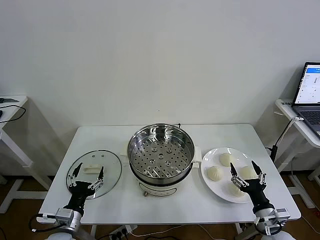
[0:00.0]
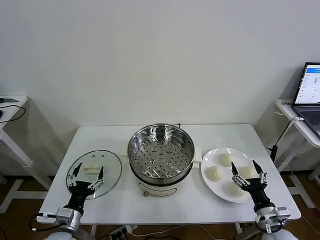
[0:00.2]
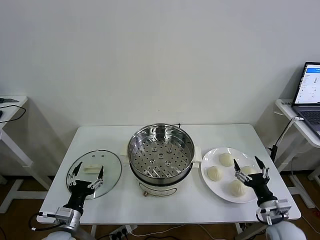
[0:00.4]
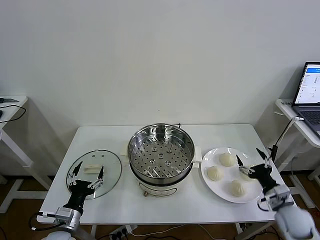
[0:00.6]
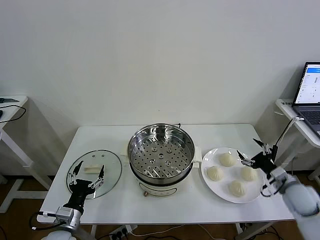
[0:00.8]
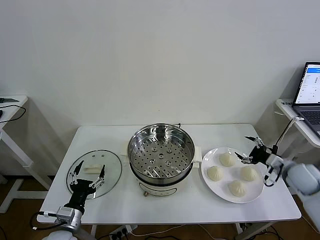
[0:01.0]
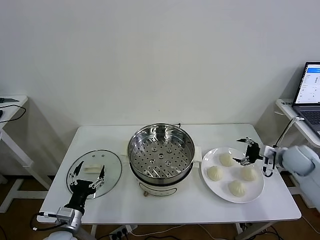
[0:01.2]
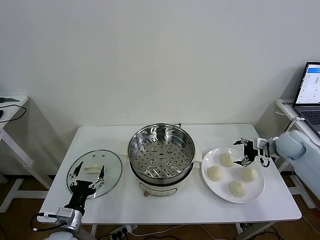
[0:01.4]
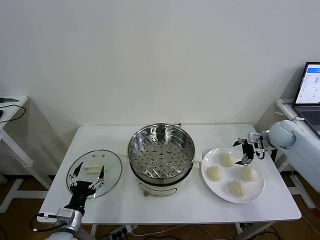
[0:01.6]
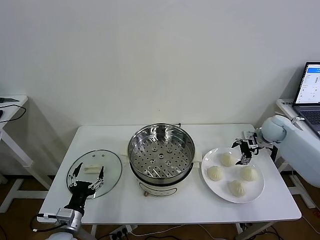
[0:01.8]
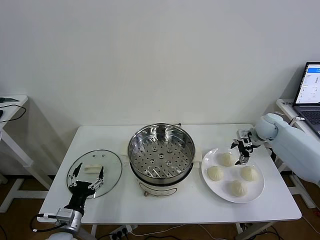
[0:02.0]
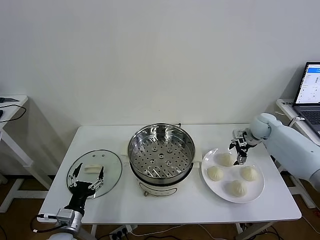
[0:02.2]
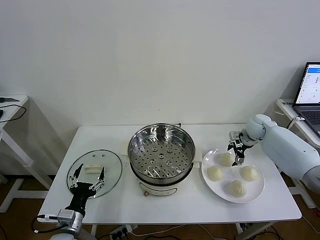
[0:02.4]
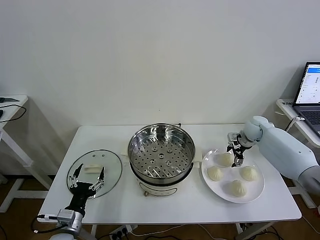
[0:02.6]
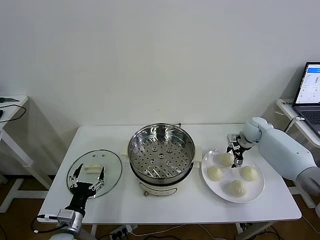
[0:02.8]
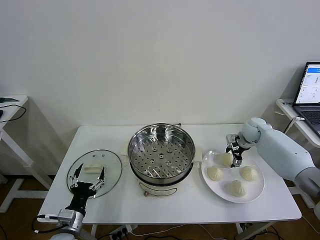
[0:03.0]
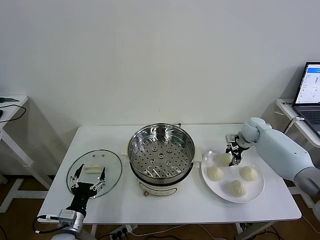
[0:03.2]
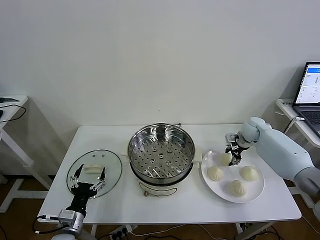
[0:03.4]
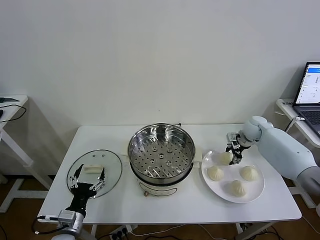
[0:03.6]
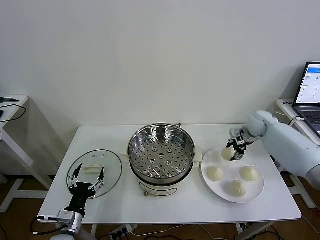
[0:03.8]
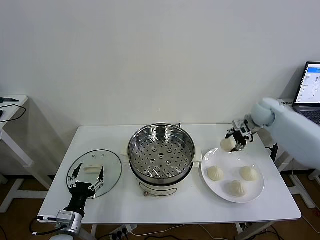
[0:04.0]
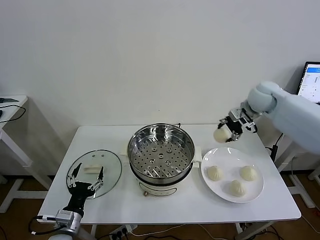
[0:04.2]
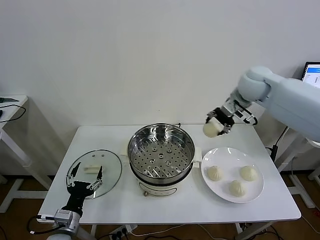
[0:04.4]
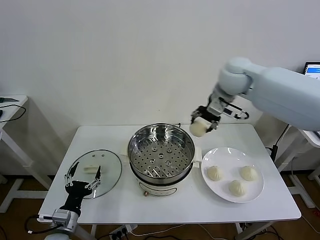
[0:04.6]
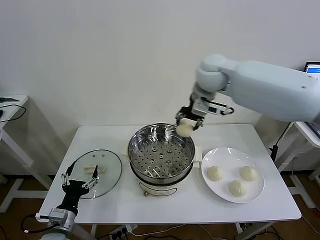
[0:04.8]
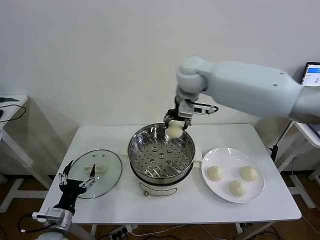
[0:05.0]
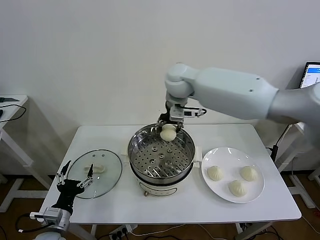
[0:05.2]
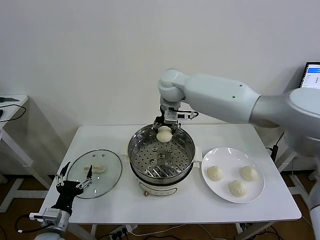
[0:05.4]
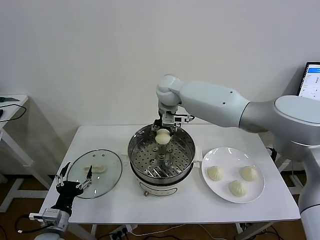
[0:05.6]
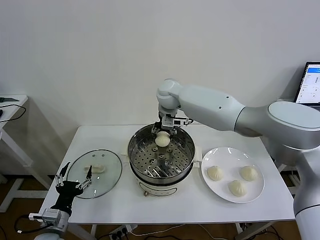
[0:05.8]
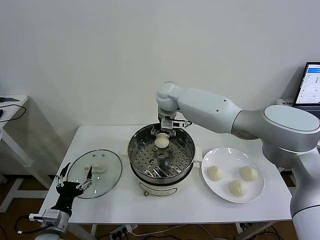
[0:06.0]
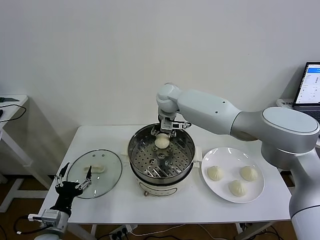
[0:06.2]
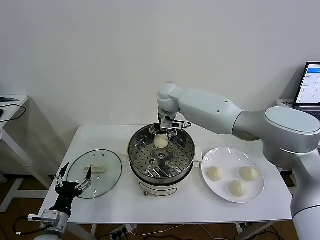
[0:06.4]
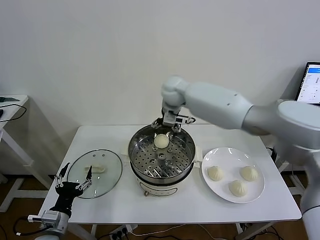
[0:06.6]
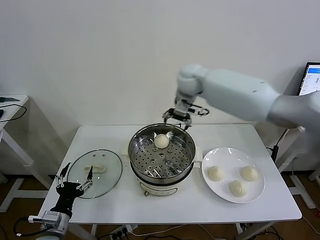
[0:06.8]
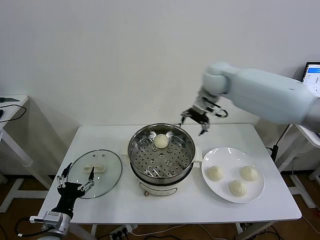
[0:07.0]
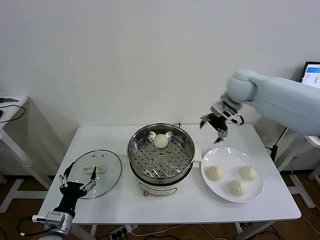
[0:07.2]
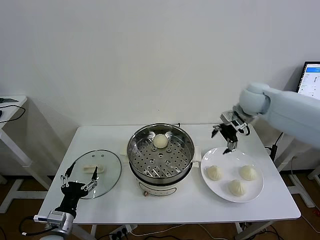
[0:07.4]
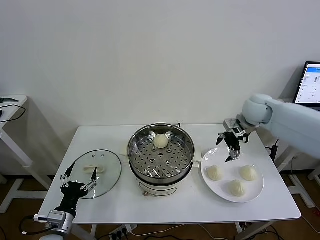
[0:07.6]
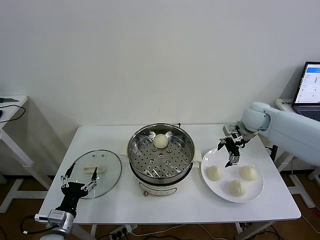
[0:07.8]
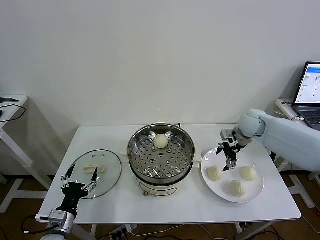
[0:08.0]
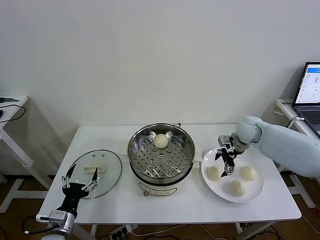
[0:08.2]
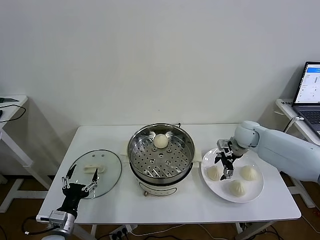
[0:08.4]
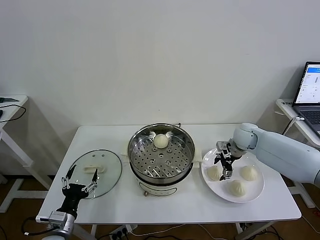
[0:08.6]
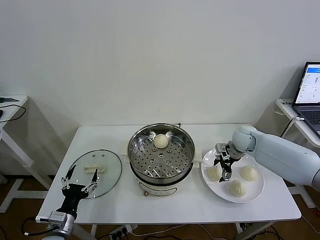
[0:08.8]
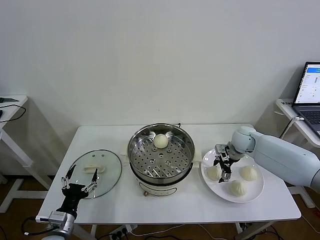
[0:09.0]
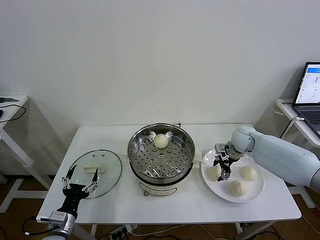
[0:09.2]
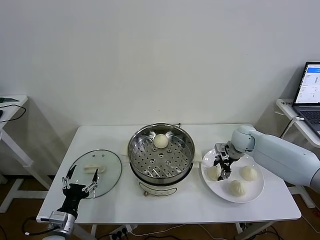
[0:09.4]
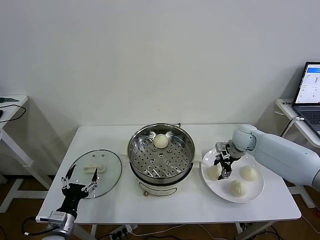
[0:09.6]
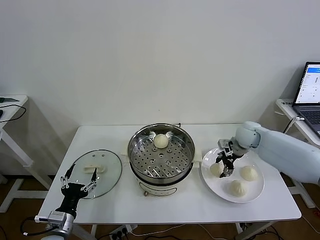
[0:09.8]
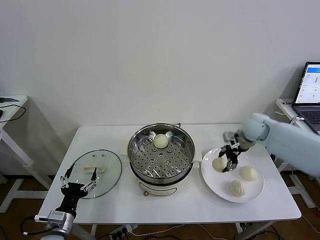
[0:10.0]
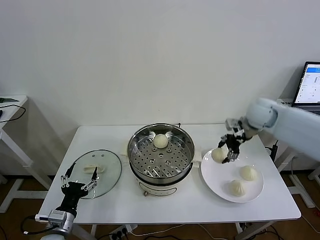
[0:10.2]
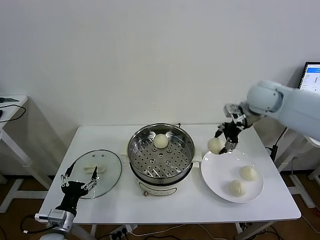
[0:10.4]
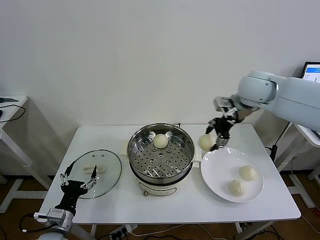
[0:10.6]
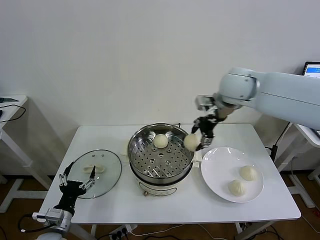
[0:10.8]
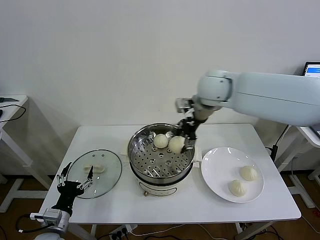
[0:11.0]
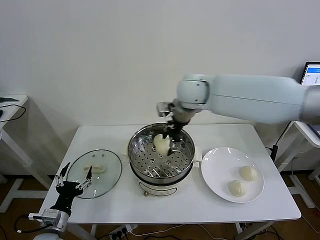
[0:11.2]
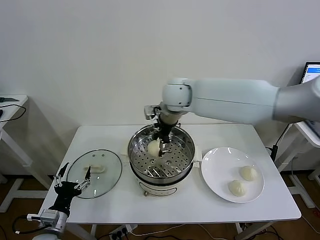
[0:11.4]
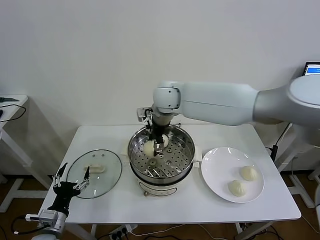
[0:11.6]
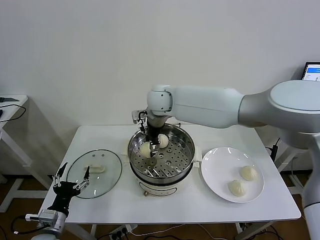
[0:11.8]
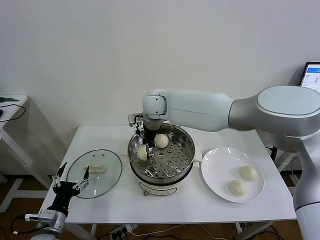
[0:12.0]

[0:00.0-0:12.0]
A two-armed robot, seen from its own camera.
Task of the whole recording: take steamed baozi put them in steamer then cover it.
Step, 0:00.0 to 0:03.2: Grasp the baozi in the plate with right gripper.
Step, 0:03.4 to 0:06.4: Place the baozi on the steamer with right gripper.
Step, 0:06.6 to 0:09.2: Grasp the baozi in the plate with right gripper.
0:01.6 to 0:03.0: The right gripper shifts about 10 cm forward and downward, and closes.
0:03.0 to 0:04.4: The right gripper shifts roughly 30 cm upward and to the left, and closes.
0:04.4 to 0:06.0: The right gripper travels to the left and downward by approximately 25 cm.
0:06.0 to 0:07.6: The right gripper moves to the right, roughly 30 cm, and opens its fingers.
0:07.6 to 0:09.0: The right gripper travels downward by some 15 cm.
0:09.0 to 0:10.4: The right gripper travels upward by approximately 20 cm, and closes.
0:10.4 to 0:12.0: The right gripper moves to the left, approximately 30 cm.

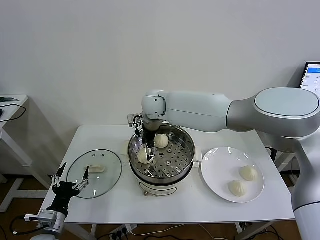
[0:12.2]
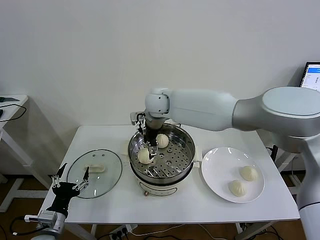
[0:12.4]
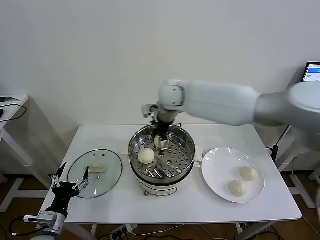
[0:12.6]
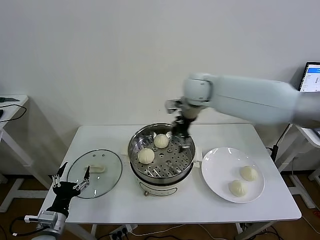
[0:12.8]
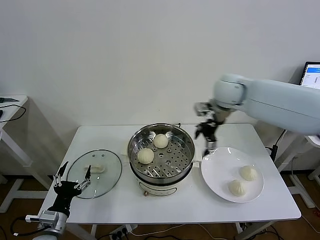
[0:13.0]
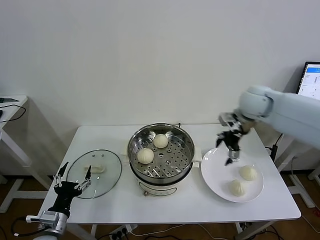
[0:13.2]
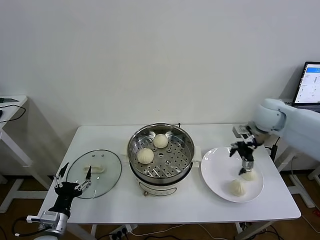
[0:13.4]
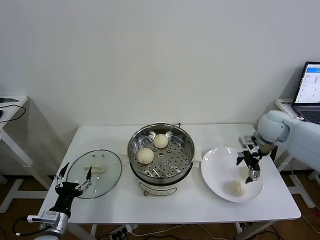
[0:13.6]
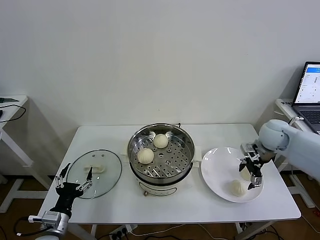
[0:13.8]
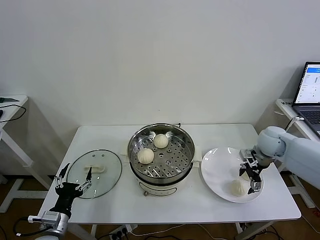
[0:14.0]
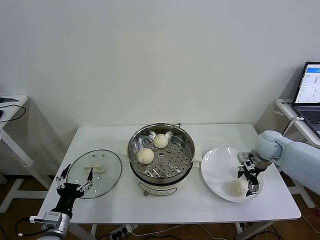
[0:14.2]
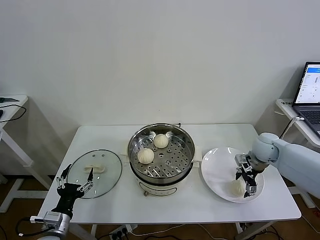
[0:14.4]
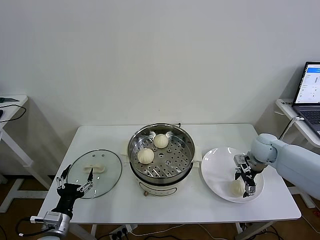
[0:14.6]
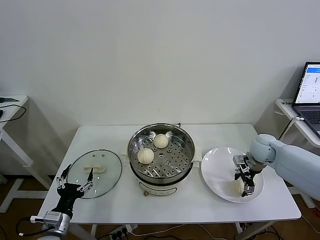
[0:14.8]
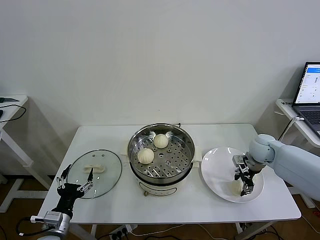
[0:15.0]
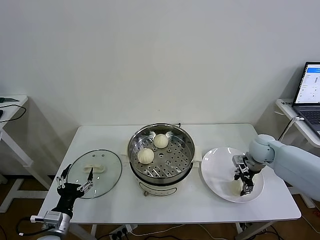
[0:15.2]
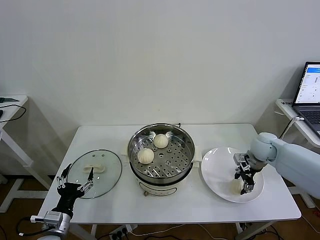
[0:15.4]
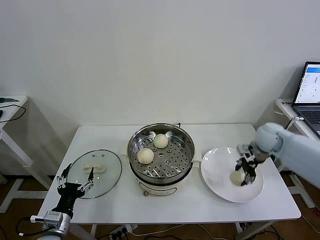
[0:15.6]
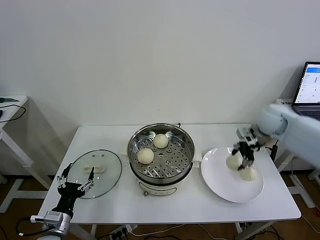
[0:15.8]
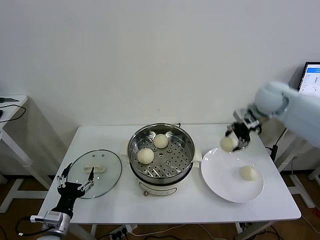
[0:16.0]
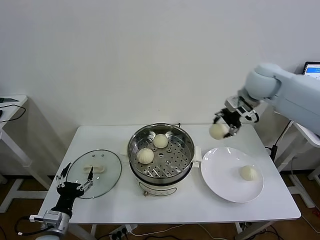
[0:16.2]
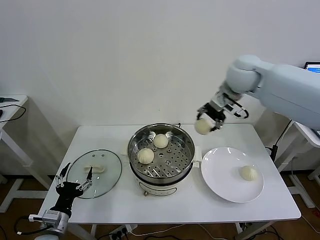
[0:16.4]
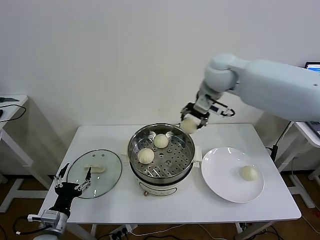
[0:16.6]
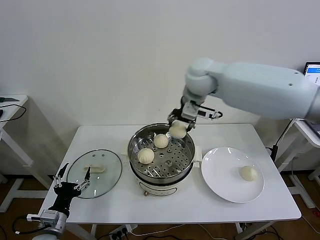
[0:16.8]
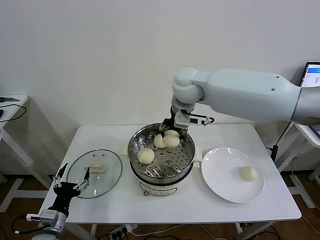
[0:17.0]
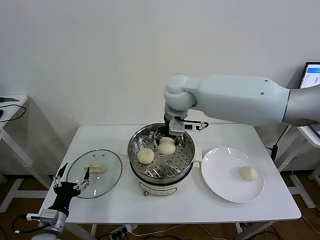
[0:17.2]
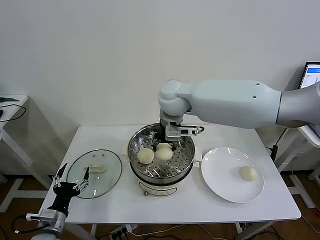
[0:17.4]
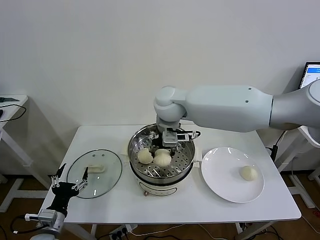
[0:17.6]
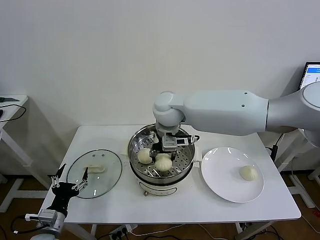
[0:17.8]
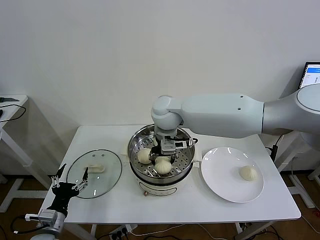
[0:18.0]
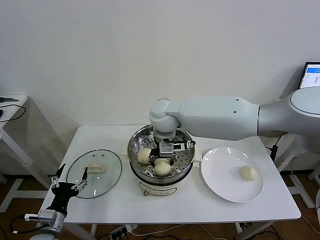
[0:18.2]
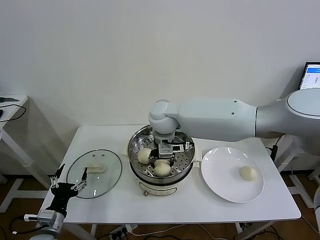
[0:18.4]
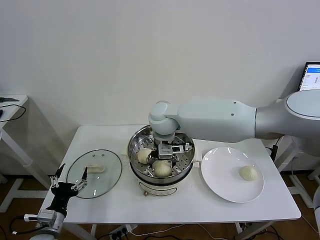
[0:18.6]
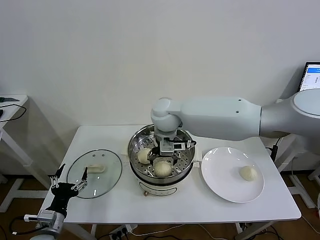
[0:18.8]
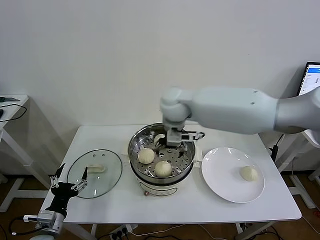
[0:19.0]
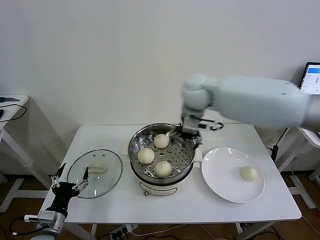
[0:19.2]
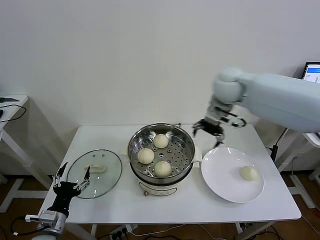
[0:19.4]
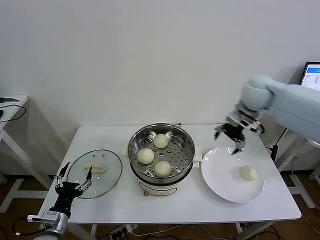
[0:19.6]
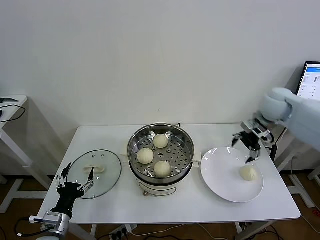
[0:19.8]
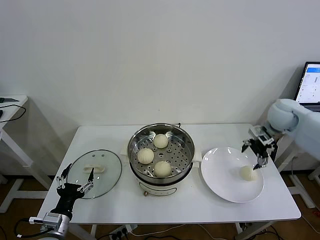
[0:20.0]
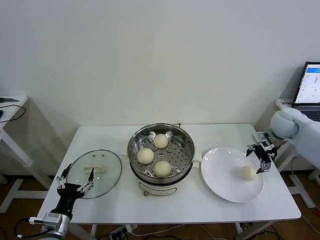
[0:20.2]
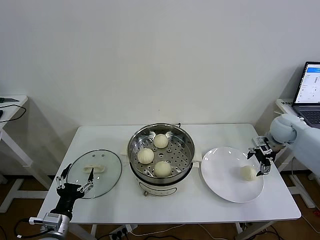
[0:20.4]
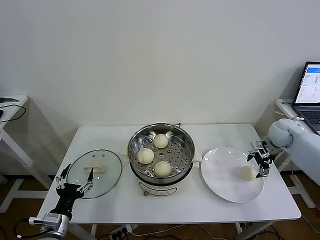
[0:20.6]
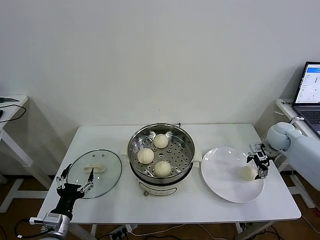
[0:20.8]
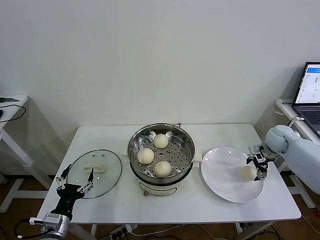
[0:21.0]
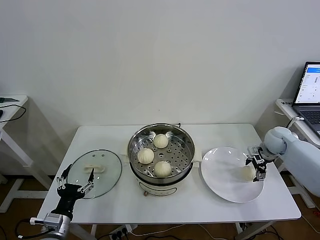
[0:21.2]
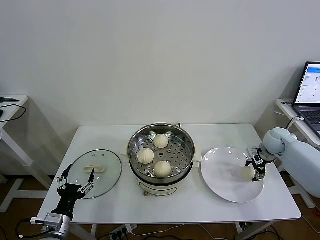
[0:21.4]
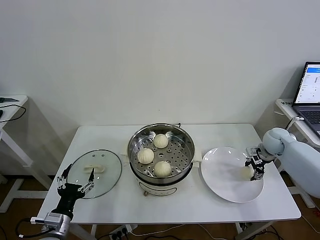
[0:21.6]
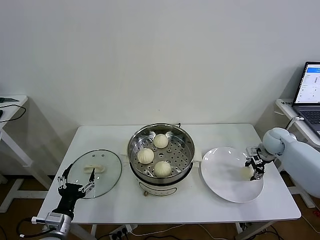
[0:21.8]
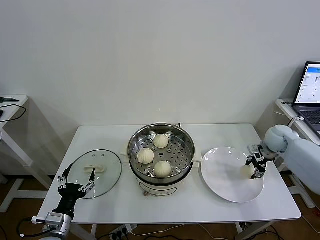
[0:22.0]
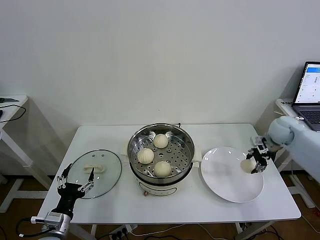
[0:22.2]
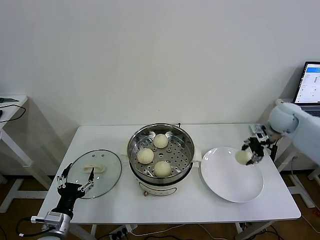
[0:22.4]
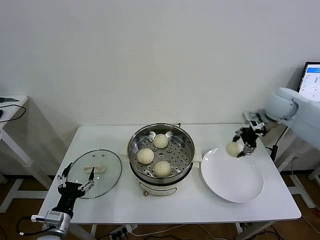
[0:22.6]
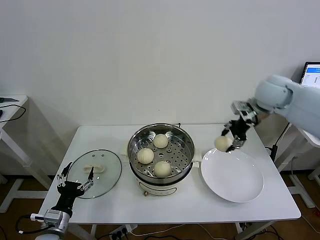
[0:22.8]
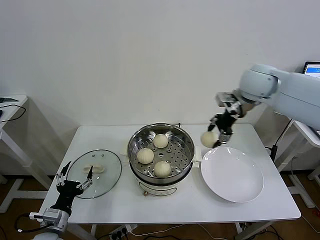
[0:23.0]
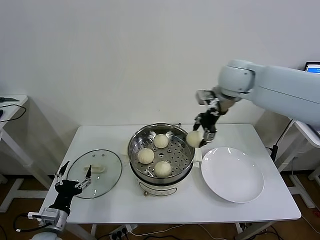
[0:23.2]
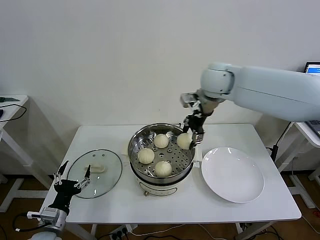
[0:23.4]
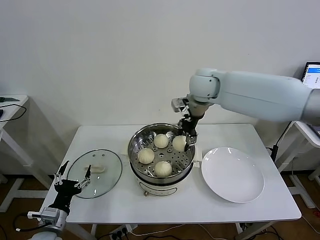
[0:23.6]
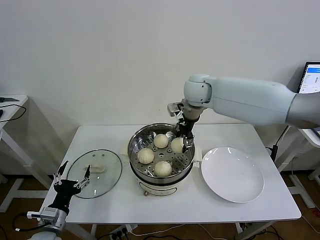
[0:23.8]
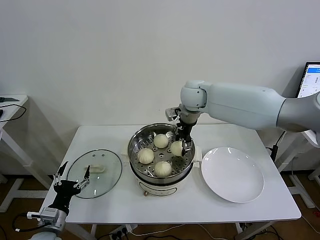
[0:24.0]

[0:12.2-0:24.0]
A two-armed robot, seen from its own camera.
Task of the whole recording: take steamed baozi put them in steamer then cover it.
Step, 0:12.4 to 0:15.0: Grasp the baozi in the plate with right gripper.
Step, 0:15.2 to 0:18.6: Place the baozi on the steamer with right gripper.
Step, 0:19.0 to 0:21.8: Grasp the baozi in the plate with right gripper.
0:12.2 to 0:13.6: The right gripper goes roughly 40 cm to the right.
0:13.6 to 0:15.2: The right gripper goes approximately 10 cm downward, and closes up.
0:15.2 to 0:16.6: The right gripper goes approximately 35 cm upward and to the left.
0:16.6 to 0:18.2: The right gripper heads to the left and downward, covering about 20 cm.
0:18.2 to 0:19.6: The right gripper is displaced to the right by about 30 cm, and opens up.
0:19.6 to 0:21.0: The right gripper goes some 25 cm downward and to the right.
0:21.0 to 0:22.6: The right gripper moves upward and to the left, approximately 20 cm, and closes up.
0:22.6 to 0:24.0: The right gripper heads to the left, covering about 25 cm.
